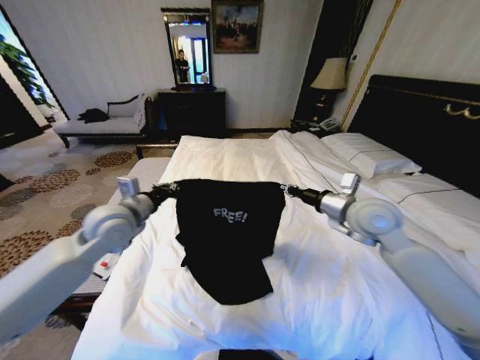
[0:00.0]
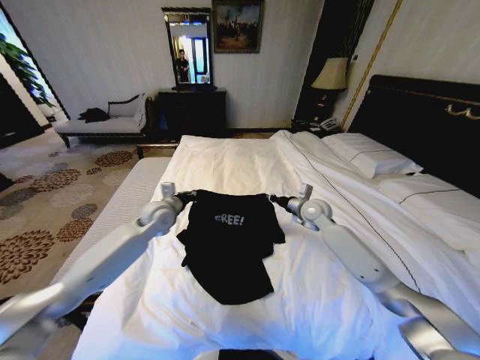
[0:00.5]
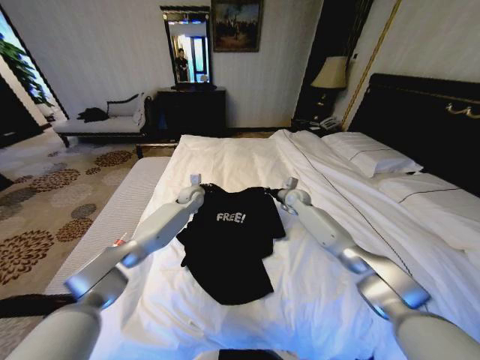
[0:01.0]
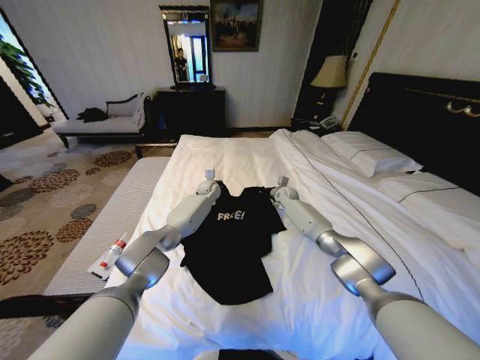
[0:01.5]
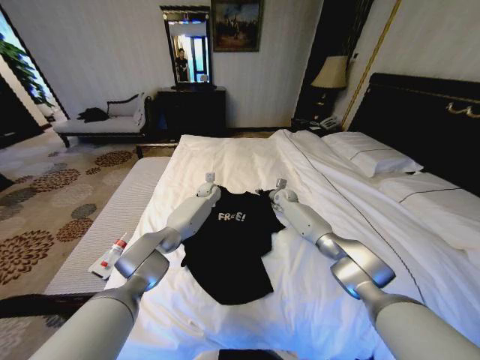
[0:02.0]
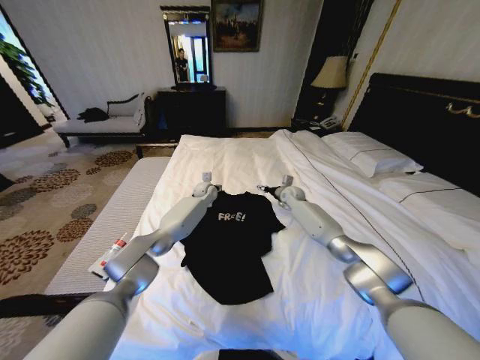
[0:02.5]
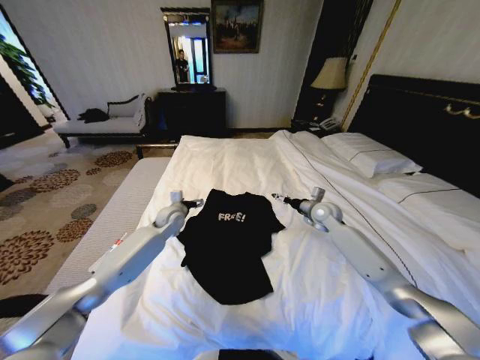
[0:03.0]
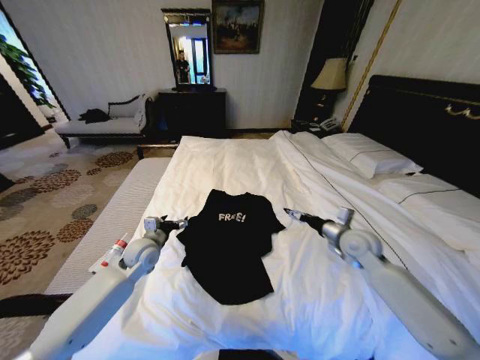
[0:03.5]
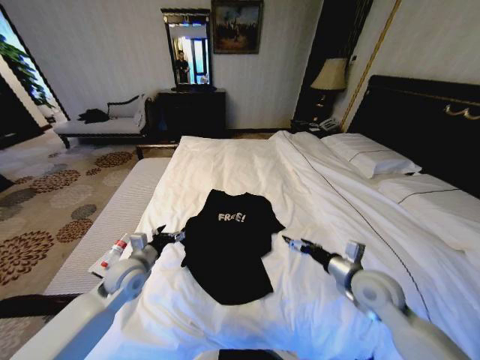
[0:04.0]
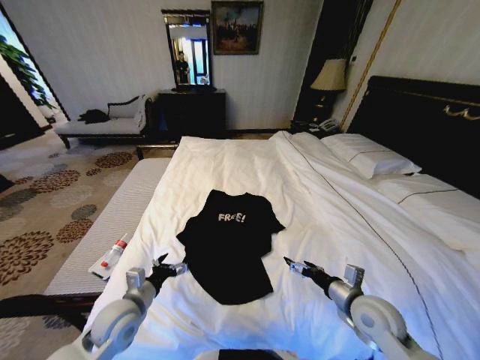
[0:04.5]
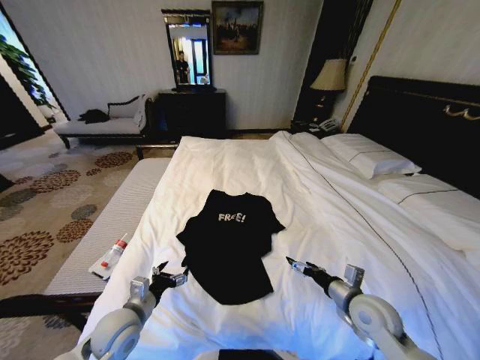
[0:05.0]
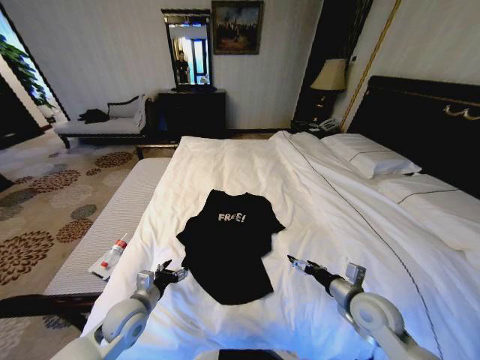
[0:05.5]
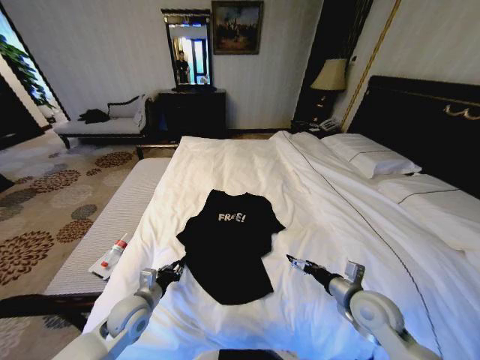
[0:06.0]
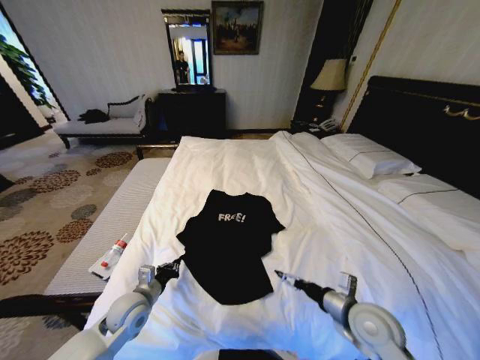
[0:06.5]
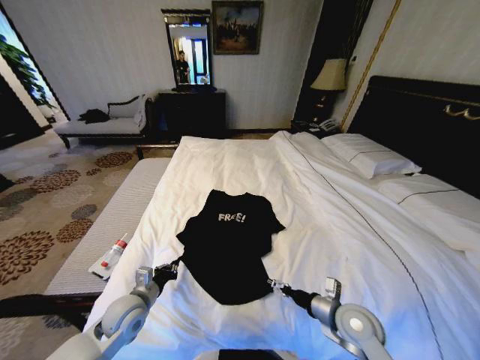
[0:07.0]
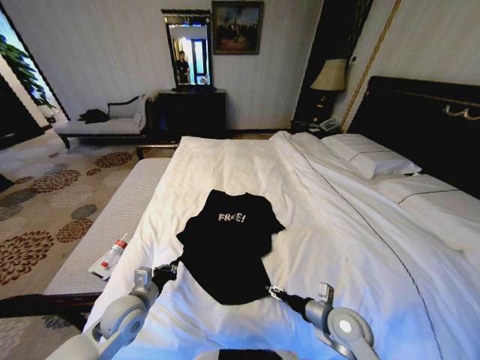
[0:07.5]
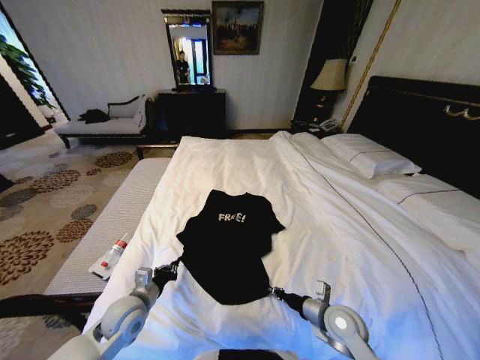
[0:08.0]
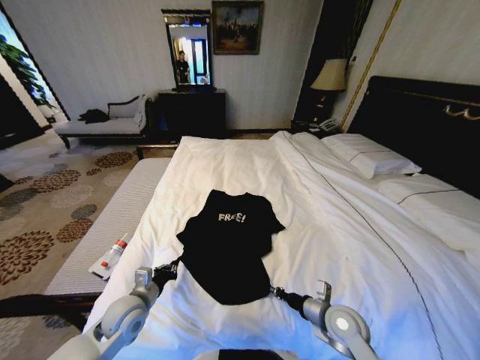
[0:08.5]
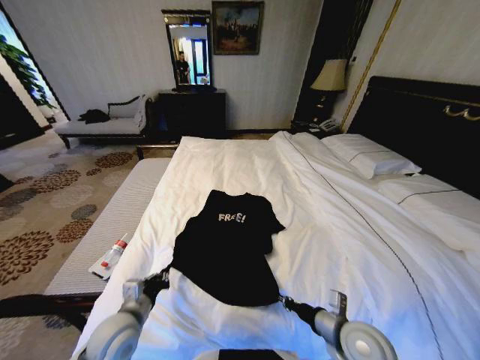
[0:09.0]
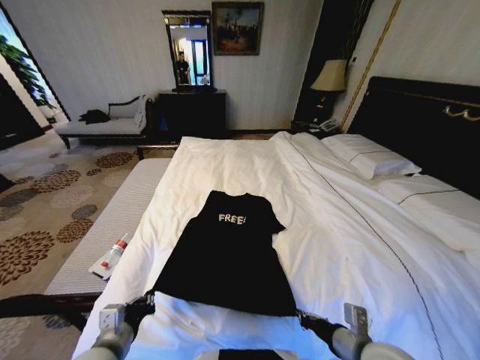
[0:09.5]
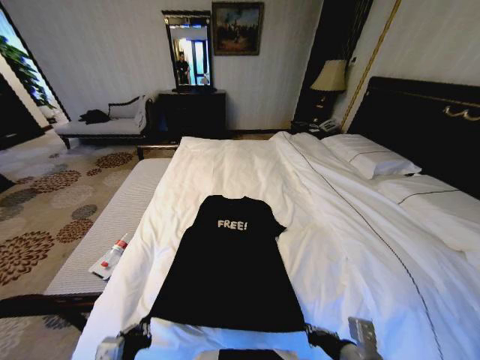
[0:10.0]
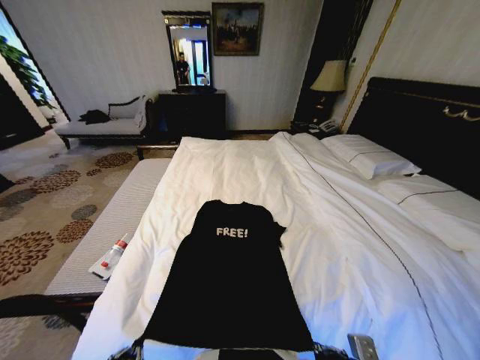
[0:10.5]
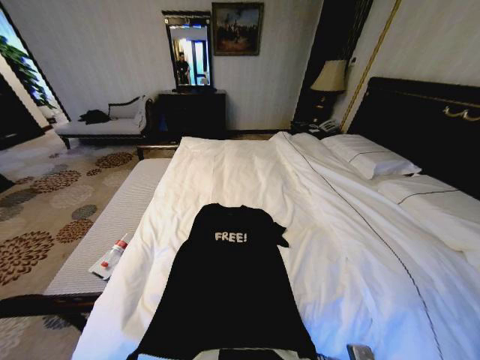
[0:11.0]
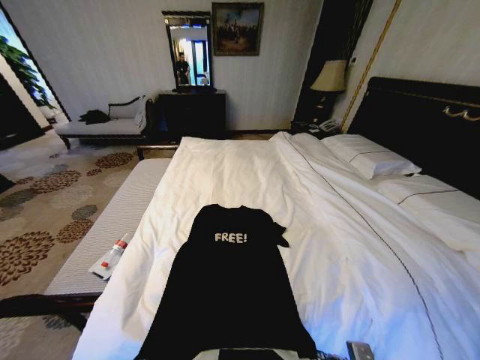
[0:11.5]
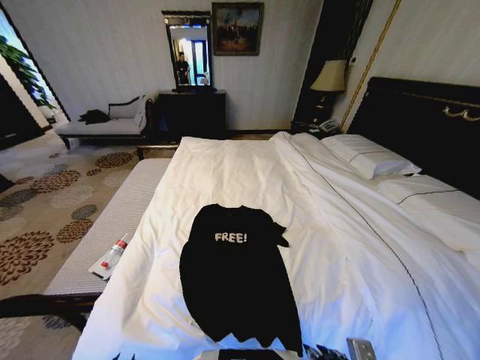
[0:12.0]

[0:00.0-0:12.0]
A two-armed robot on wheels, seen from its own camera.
Task of the whole recording: Fold the clothes on the bed.
0:00.0 to 0:02.0: The right gripper travels forward and downward by approximately 35 cm; the left gripper goes some 40 cm forward, to the right and downward.
0:02.0 to 0:04.0: The right gripper heads backward, covering approximately 40 cm, and opens its fingers; the left gripper is displaced backward and to the left by some 40 cm, and opens up.
0:04.0 to 0:06.0: The right gripper shifts by some 5 cm; the left gripper travels backward and downward by approximately 10 cm, and closes up.
0:06.0 to 0:08.0: The right gripper moves downward, approximately 5 cm, and closes.
0:08.0 to 0:10.0: The left gripper heads backward, covering approximately 15 cm. The right gripper travels backward and upward by roughly 15 cm.
0:10.0 to 0:12.0: The right gripper opens up. The left gripper shifts approximately 5 cm backward, and opens up.

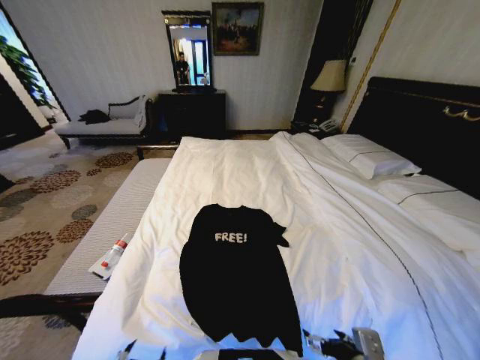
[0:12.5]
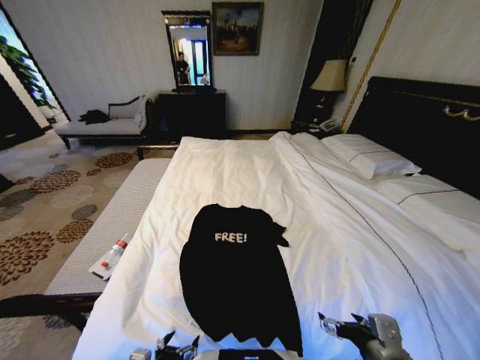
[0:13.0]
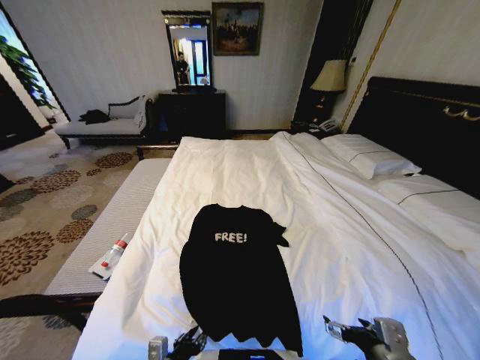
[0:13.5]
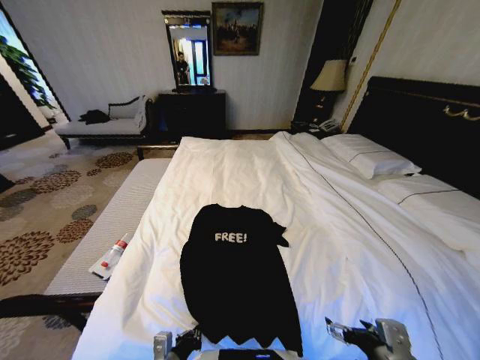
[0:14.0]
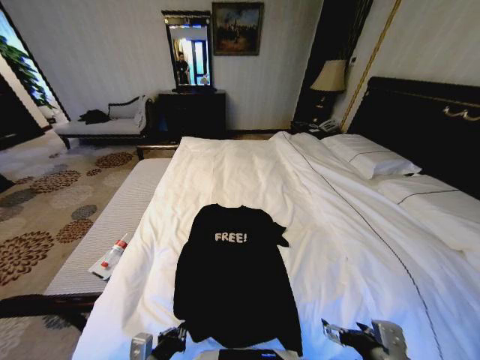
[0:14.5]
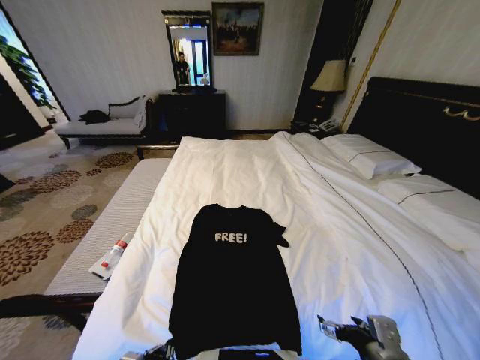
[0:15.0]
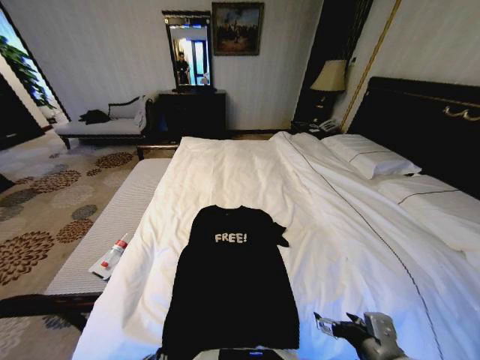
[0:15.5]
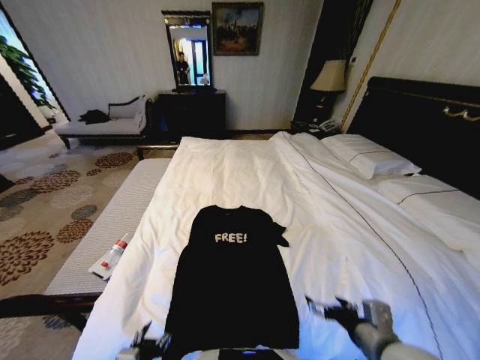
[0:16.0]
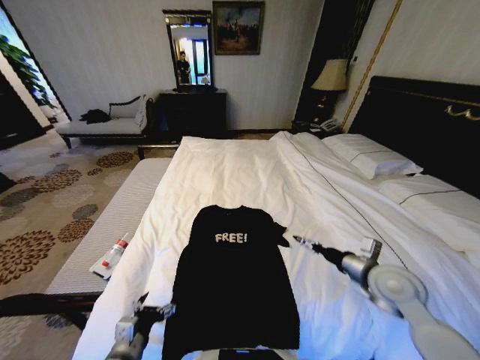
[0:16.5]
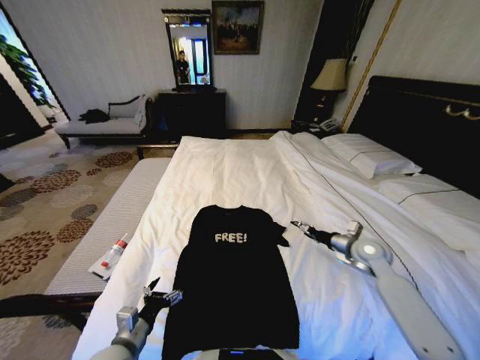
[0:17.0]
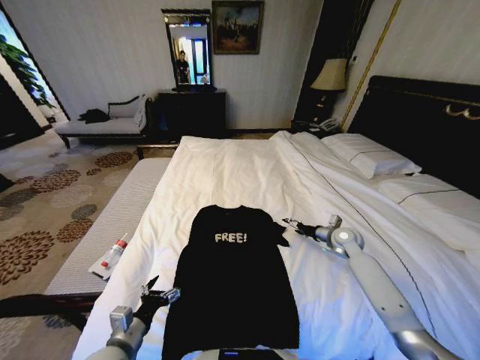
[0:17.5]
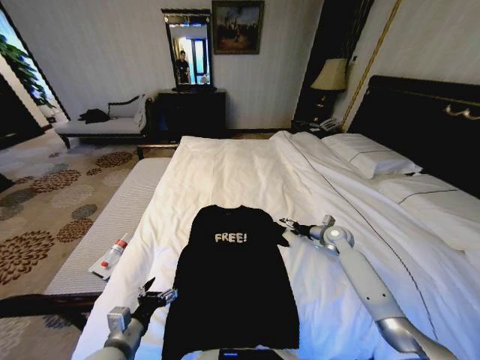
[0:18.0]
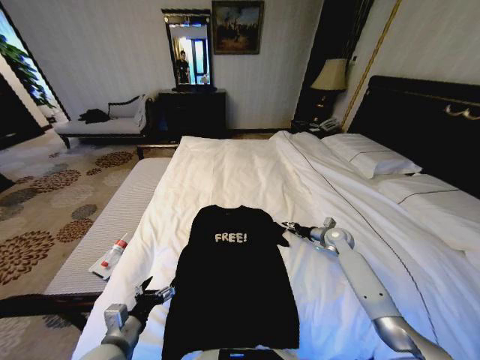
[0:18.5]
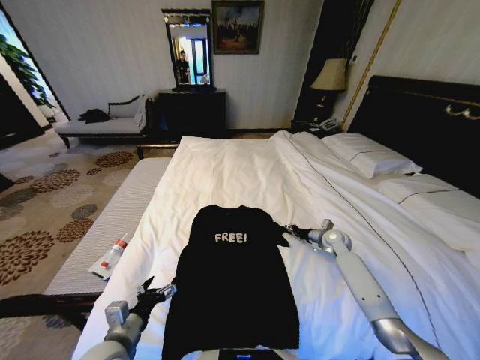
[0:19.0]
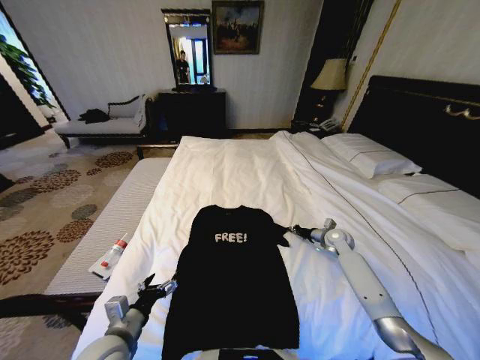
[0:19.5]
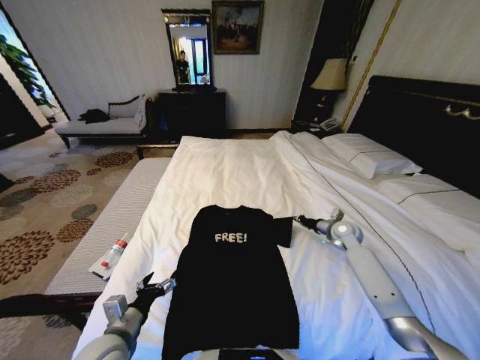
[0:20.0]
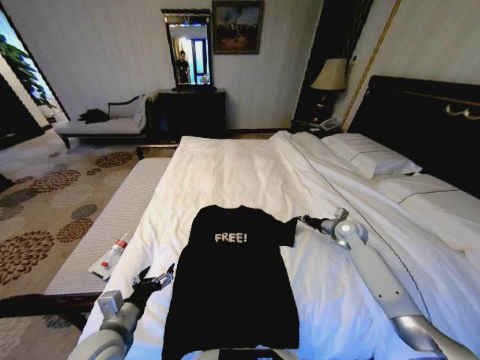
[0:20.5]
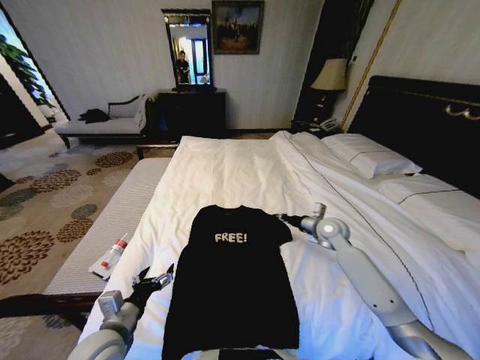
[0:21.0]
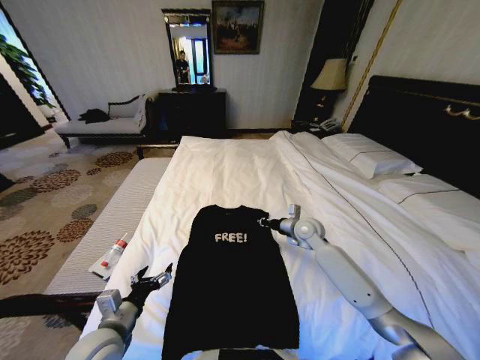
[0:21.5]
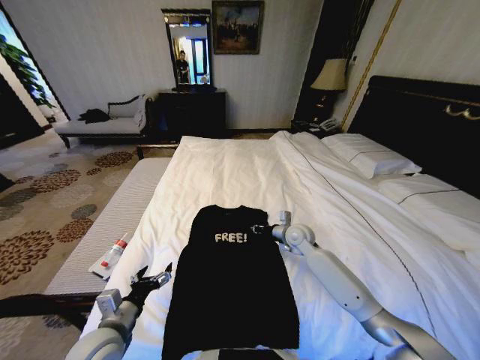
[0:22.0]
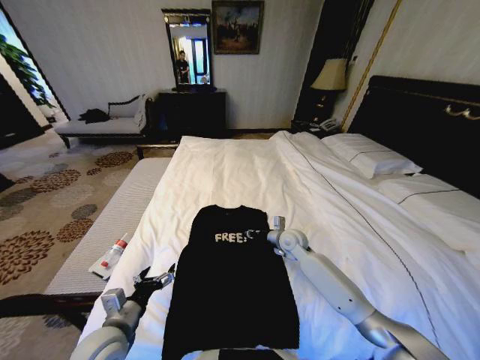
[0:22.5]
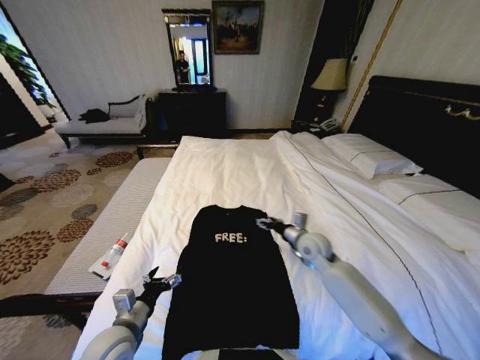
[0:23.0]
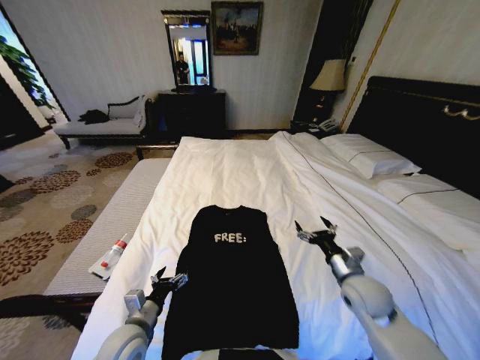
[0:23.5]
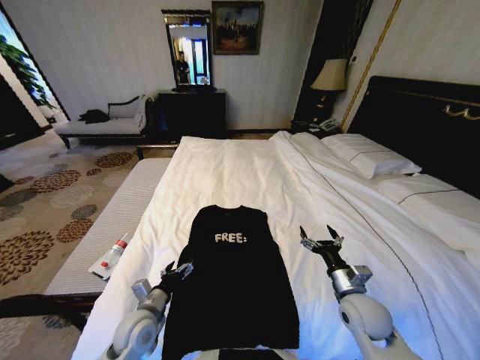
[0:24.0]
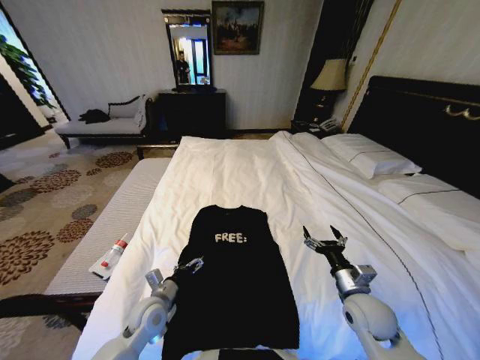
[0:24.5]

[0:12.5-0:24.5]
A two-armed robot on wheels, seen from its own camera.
Task of the whole recording: Fold the clothes on the bed.
0:12.5 to 0:14.5: The left gripper heads forward, covering about 5 cm, and closes up.
0:14.5 to 0:16.5: The right gripper heads forward, covering approximately 20 cm. The left gripper opens up.
0:16.5 to 0:18.5: The right gripper travels forward and downward by some 25 cm, and closes its fingers.
0:18.5 to 0:20.5: The right gripper closes its fingers.
0:20.5 to 0:22.5: The right gripper moves to the left, roughly 20 cm.
0:22.5 to 0:24.5: The left gripper goes about 10 cm forward and downward, while the right gripper goes roughly 25 cm backward and to the right, and opens.

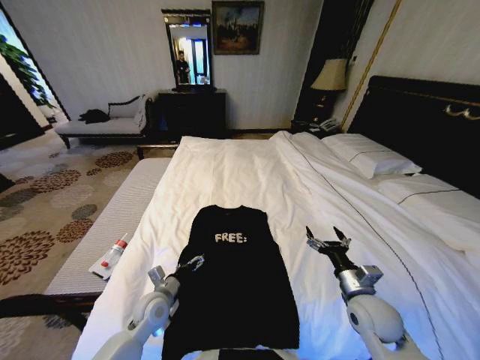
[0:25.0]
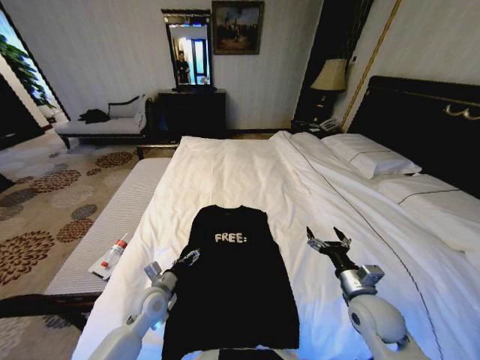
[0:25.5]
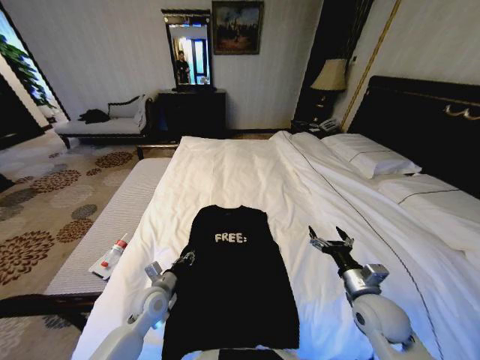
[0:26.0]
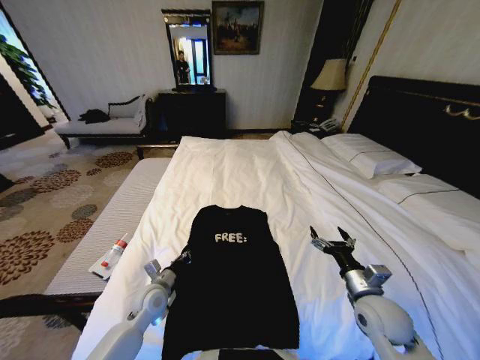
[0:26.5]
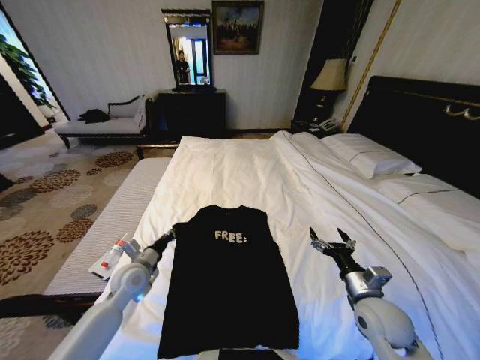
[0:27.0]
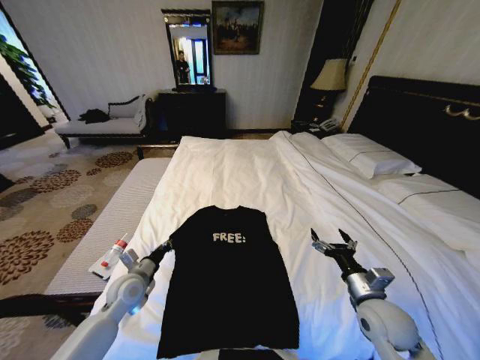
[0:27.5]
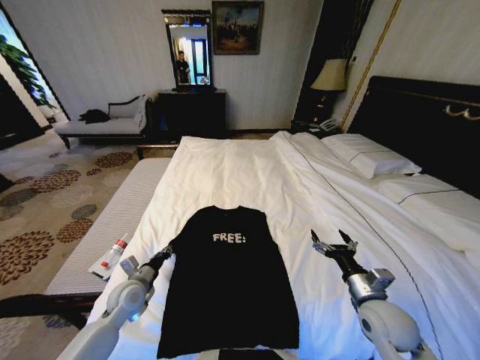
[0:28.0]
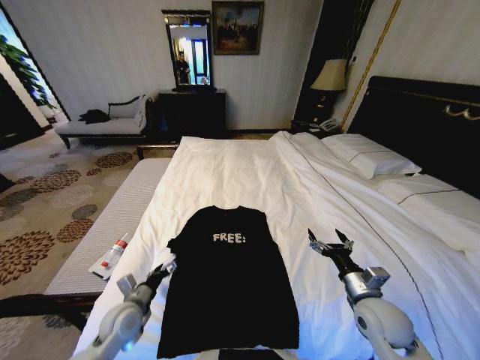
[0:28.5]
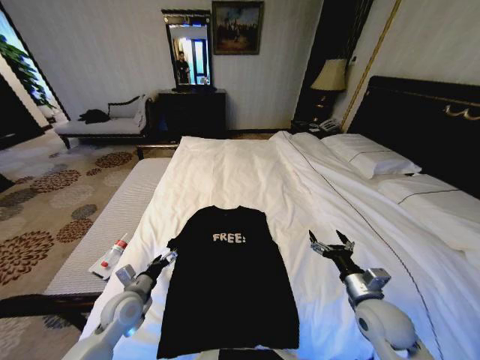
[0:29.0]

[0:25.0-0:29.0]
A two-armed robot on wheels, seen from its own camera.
Task of the whole recording: Fold the clothes on the bed.
0:25.0 to 0:27.0: The left gripper travels to the left, upward and forward by approximately 10 cm, and closes.
0:27.0 to 0:29.0: The left gripper shifts some 5 cm backward, and opens its fingers.
